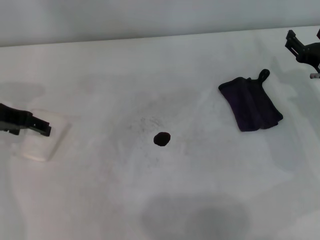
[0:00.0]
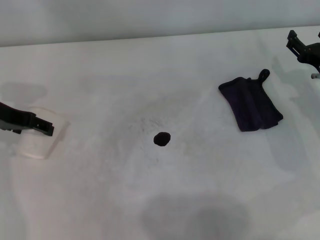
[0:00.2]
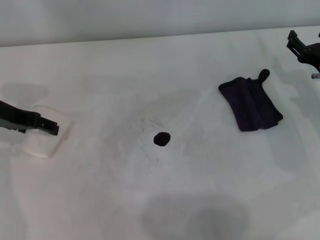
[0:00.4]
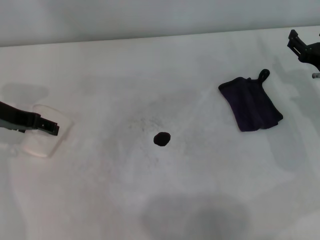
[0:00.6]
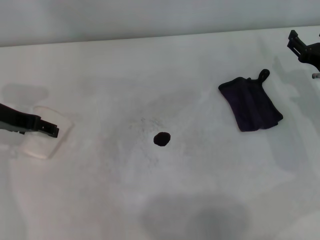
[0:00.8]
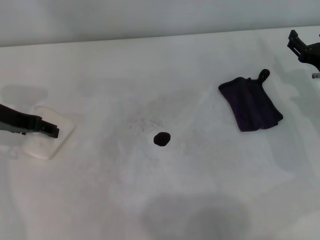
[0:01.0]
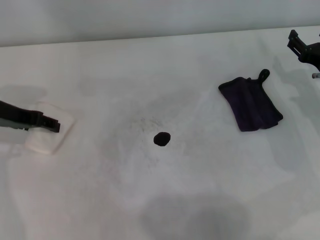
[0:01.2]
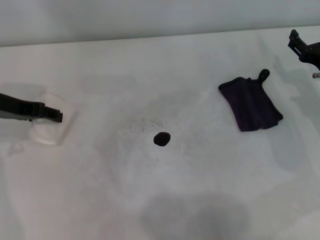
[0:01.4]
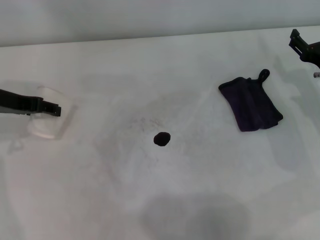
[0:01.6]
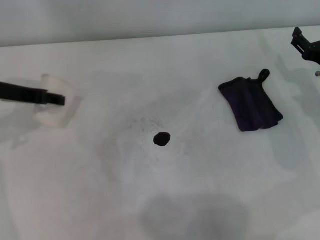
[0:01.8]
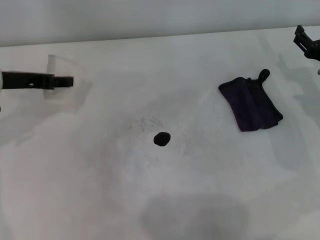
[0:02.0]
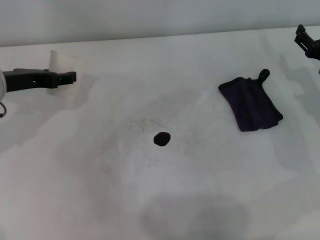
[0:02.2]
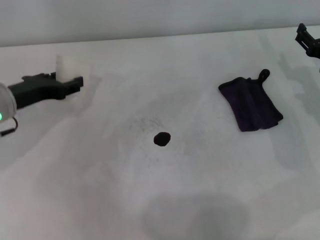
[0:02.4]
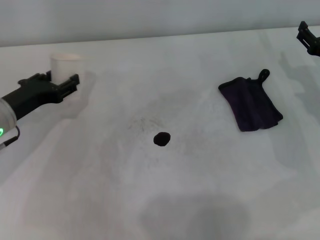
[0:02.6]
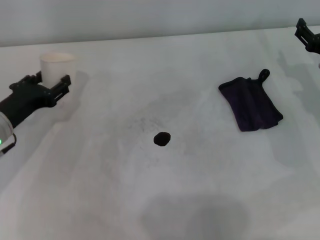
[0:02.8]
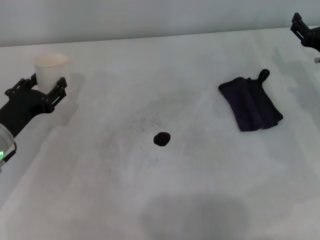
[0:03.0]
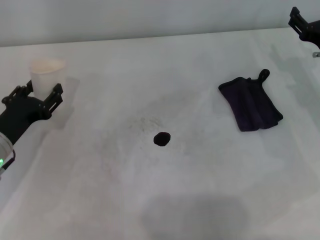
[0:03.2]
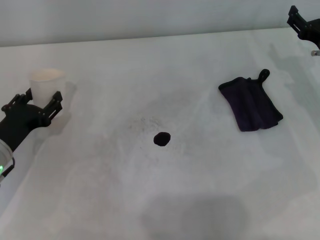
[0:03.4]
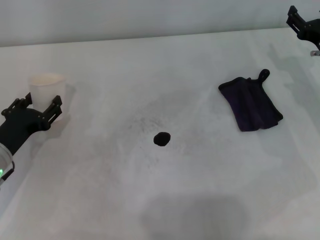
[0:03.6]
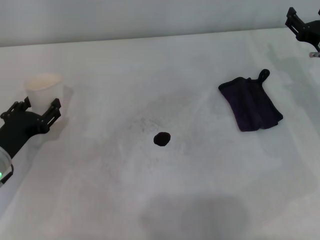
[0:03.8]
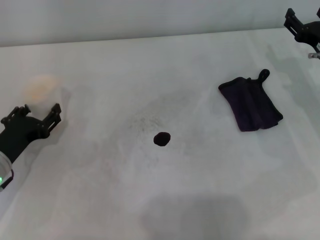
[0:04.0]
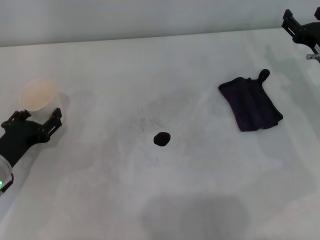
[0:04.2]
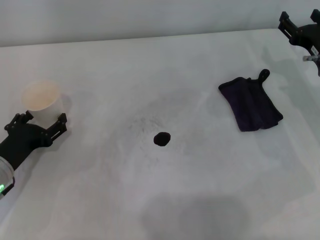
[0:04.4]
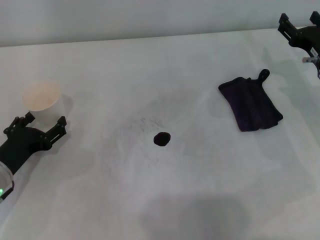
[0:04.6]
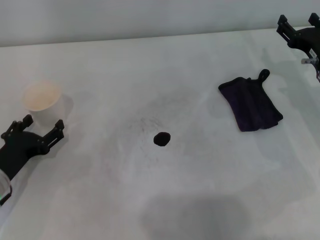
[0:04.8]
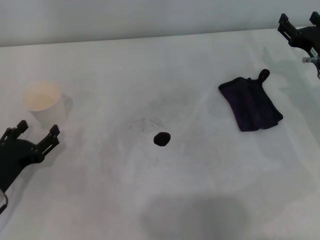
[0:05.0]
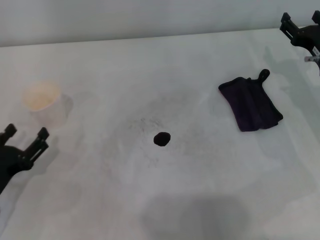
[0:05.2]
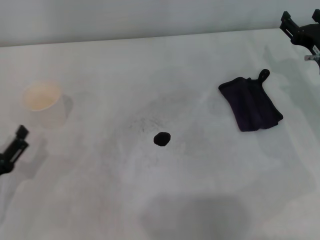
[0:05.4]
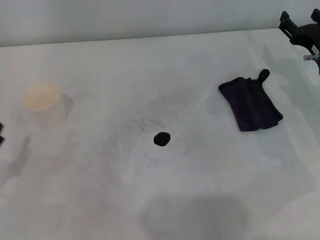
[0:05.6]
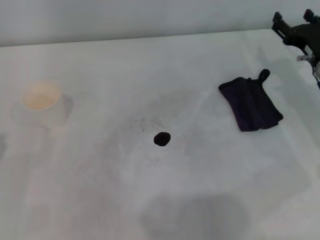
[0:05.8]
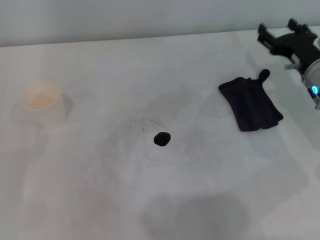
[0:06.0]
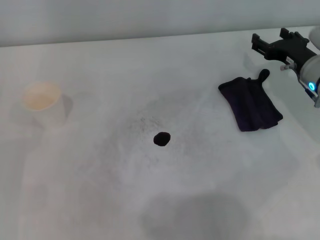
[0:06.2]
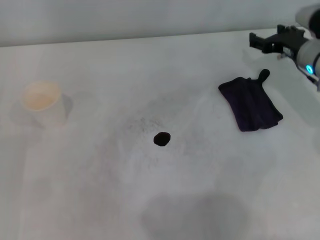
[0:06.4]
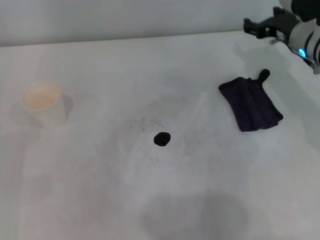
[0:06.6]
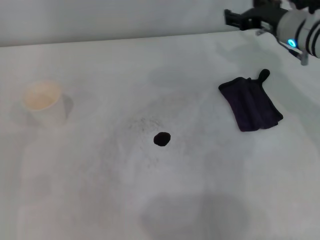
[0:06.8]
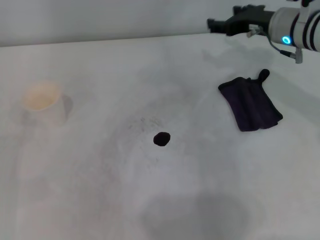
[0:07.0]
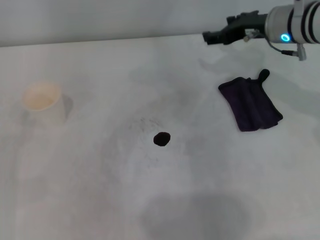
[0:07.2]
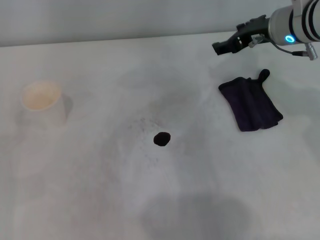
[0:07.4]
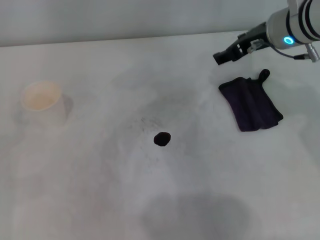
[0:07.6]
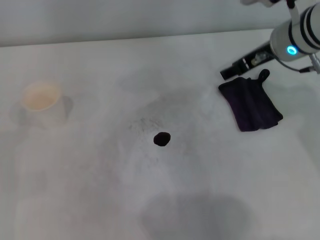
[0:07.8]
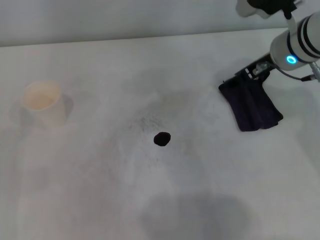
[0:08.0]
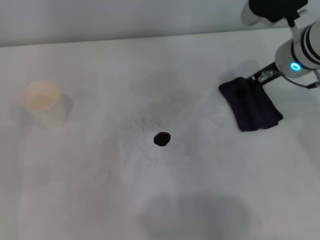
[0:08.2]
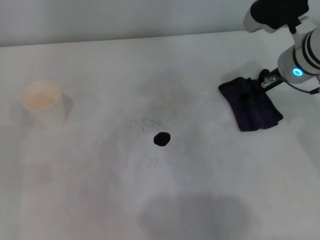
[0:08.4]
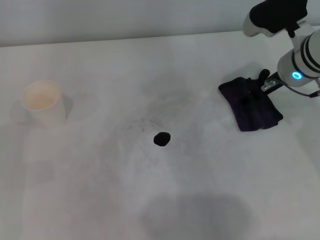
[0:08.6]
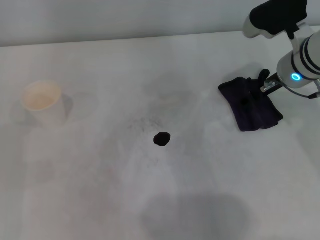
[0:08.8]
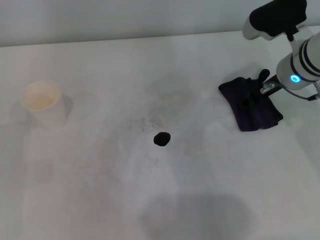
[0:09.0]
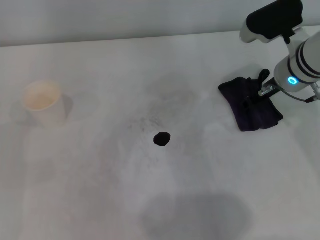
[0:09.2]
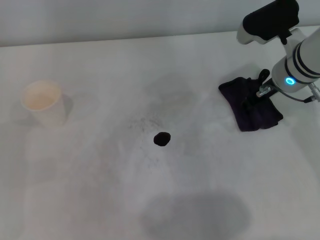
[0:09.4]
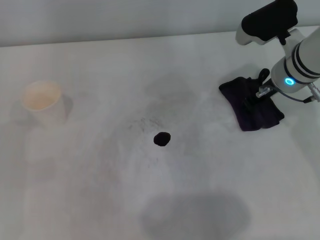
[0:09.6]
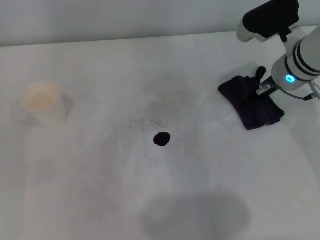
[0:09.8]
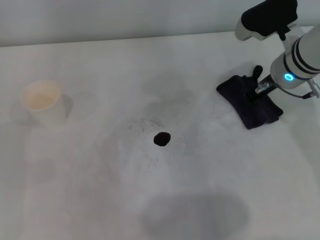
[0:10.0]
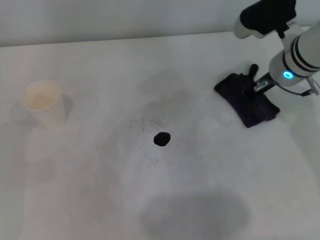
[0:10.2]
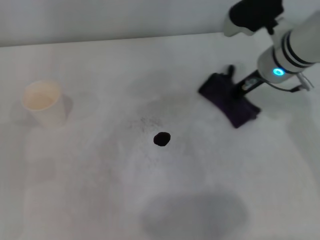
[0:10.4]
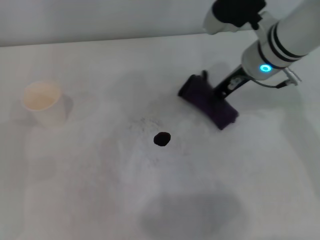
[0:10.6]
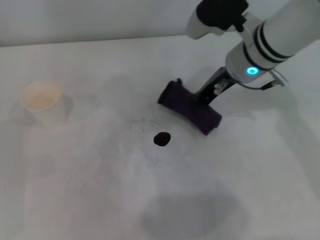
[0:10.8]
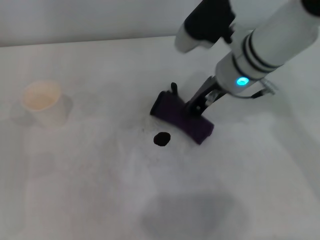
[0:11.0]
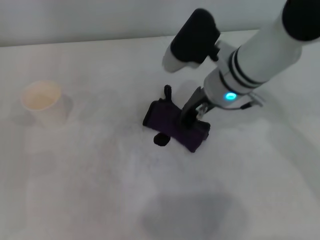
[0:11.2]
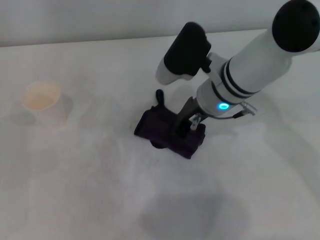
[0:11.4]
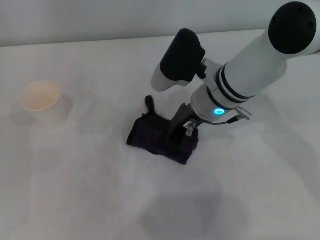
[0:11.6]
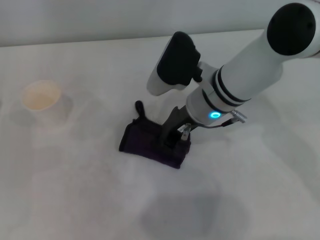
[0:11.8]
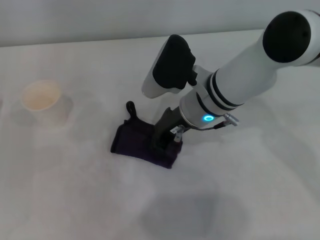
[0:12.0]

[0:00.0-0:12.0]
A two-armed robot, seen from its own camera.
Step, 0:01.2 to 0:04.4: Stand the paper cup upright with the left gripper.
Step, 0:04.6 to 0:10.0: Grasp the rag with the right gripper.
0:00.0 to 0:01.6: The left gripper closes its fingers.
0:01.6 to 0:03.0: The left gripper heads downward and backward, covering approximately 15 cm.
0:03.0 to 0:04.4: The left gripper opens up.
0:04.4 to 0:06.0: The left gripper travels backward and to the left by about 10 cm.
0:06.0 to 0:07.6: The right gripper shifts roughly 15 cm upward and to the left.
0:07.6 to 0:09.0: The right gripper goes about 5 cm downward.
0:09.0 to 0:10.4: The right gripper closes its fingers.
0:10.4 to 0:12.0: The right gripper goes about 10 cm to the left.

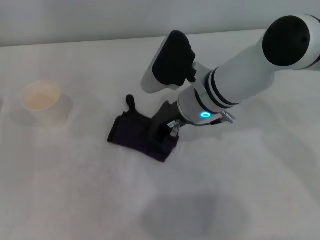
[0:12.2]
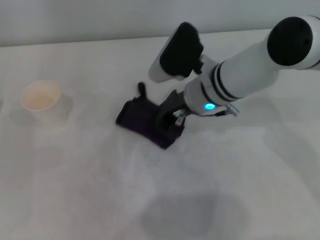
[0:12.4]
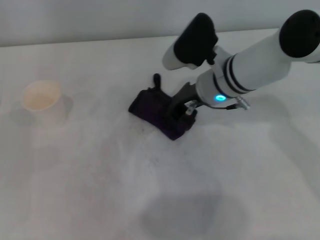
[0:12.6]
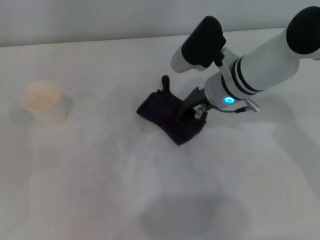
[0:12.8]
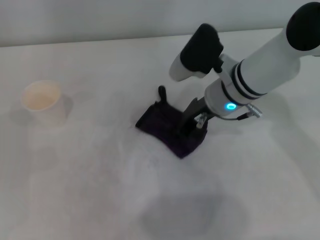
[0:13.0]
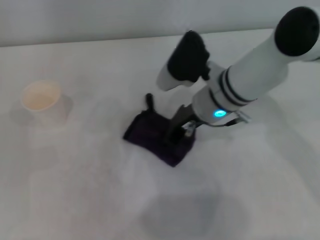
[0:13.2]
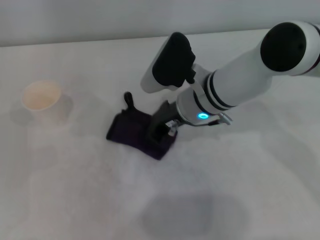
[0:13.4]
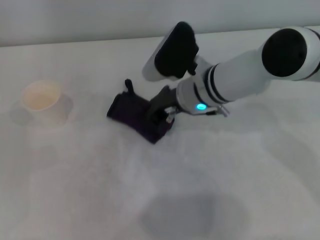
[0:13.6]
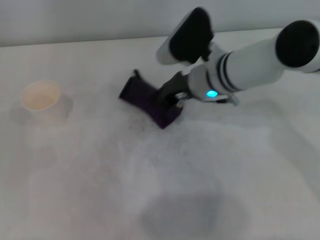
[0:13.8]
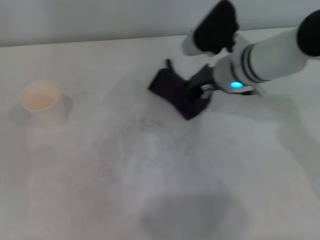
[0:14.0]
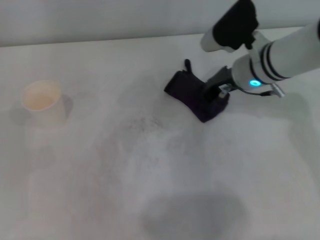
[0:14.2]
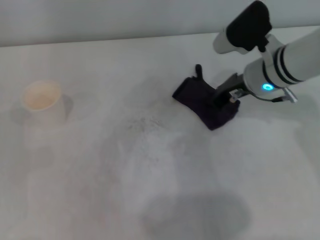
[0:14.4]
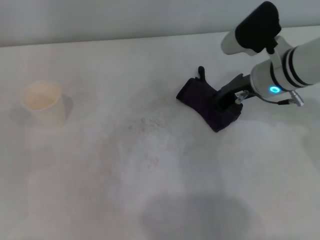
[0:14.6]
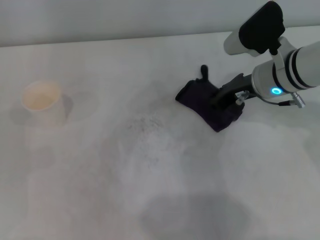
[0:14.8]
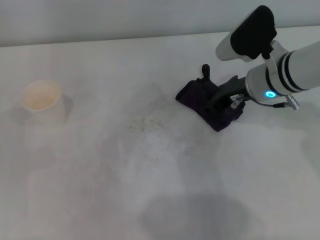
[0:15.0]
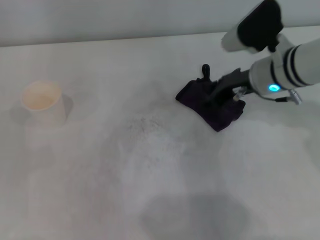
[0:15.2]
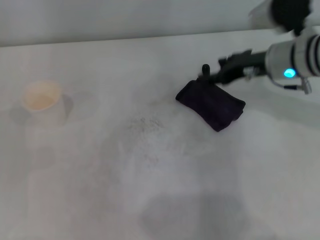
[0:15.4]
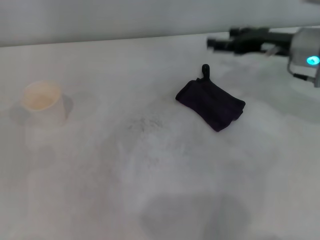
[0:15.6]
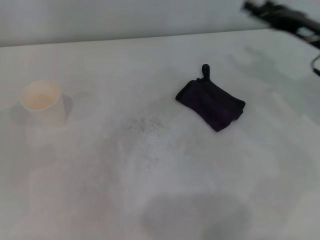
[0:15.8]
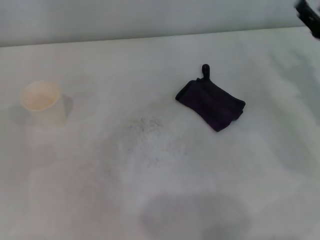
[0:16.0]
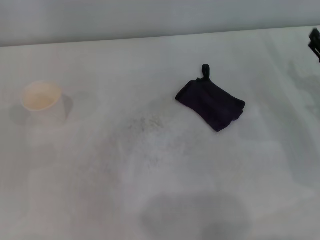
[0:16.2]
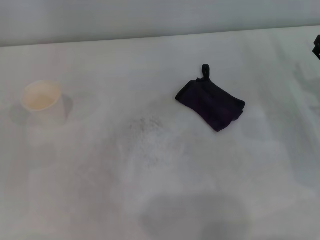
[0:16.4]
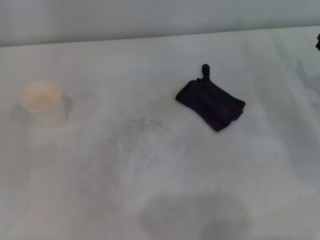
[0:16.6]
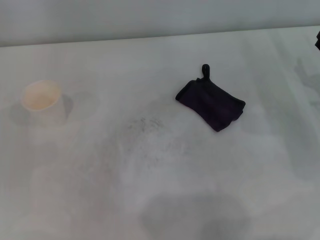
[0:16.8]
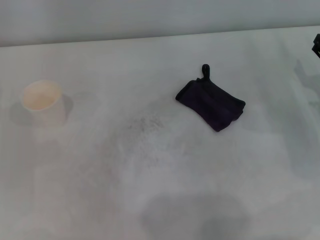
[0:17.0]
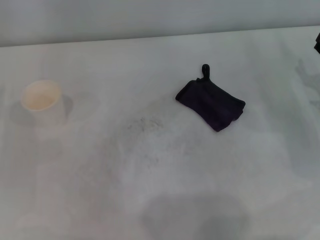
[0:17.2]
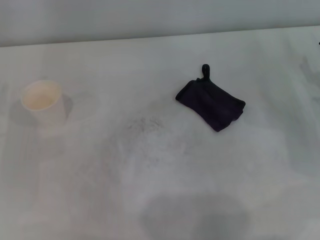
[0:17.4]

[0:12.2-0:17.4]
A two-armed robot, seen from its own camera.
Step, 0:14.2 to 0:14.8: Place the rag on the table with the right gripper.
0:12.2 to 0:14.0: The right gripper goes left and right, roughly 5 cm each way, reversing 2 times.
0:14.0 to 0:15.6: The right gripper shifts approximately 10 cm to the right, and opens.
0:15.6 to 0:17.4: The right gripper is displaced to the right, downward and backward by roughly 15 cm.
